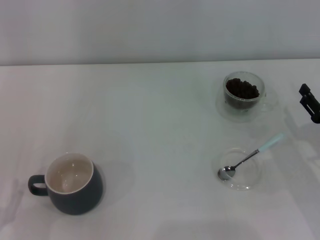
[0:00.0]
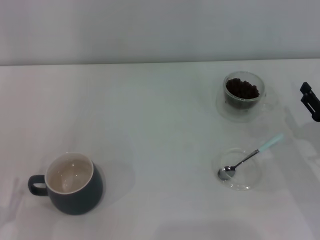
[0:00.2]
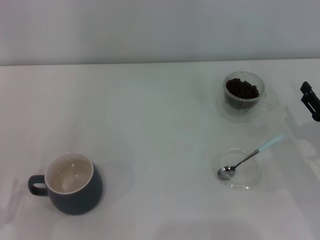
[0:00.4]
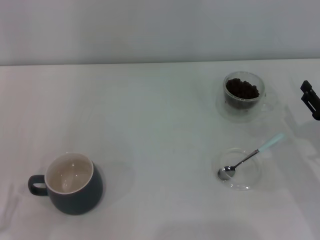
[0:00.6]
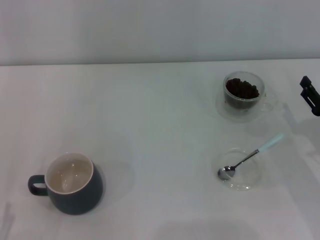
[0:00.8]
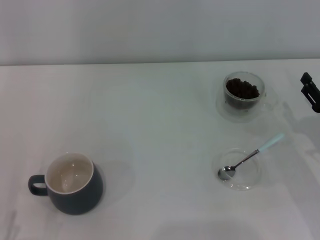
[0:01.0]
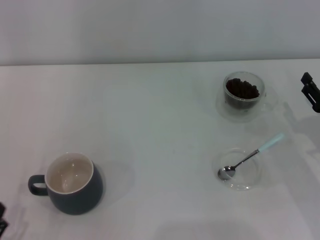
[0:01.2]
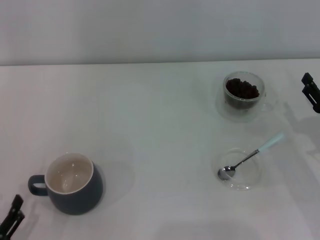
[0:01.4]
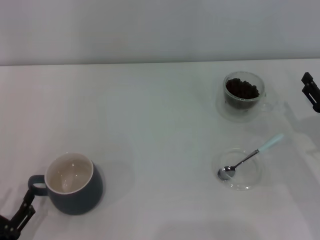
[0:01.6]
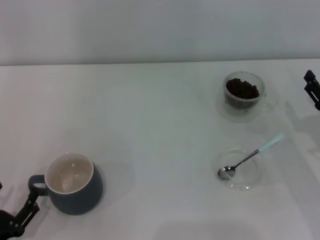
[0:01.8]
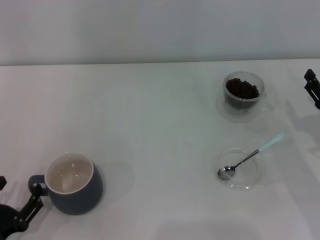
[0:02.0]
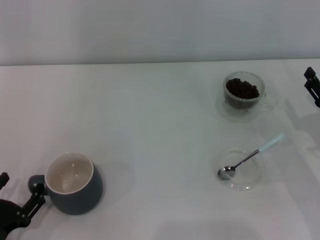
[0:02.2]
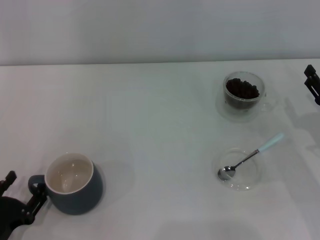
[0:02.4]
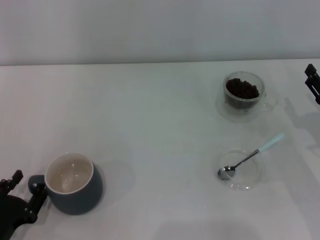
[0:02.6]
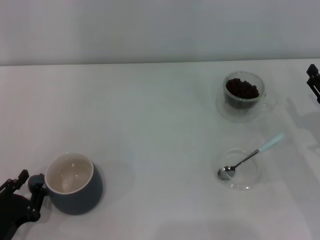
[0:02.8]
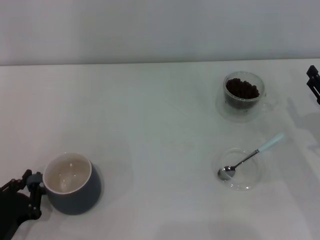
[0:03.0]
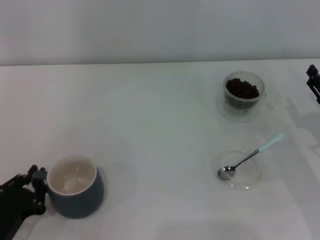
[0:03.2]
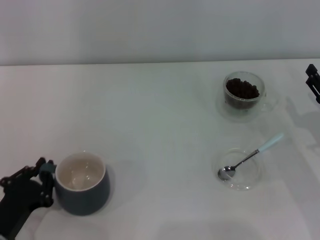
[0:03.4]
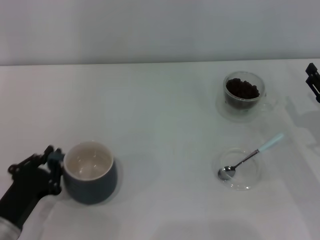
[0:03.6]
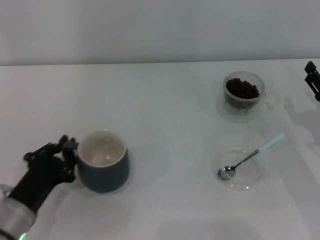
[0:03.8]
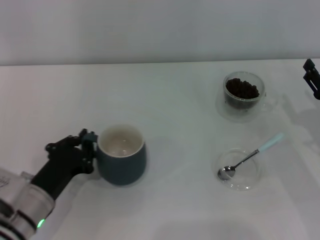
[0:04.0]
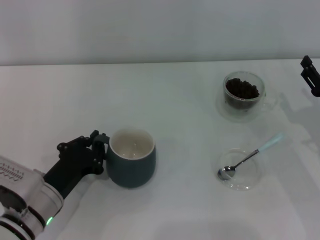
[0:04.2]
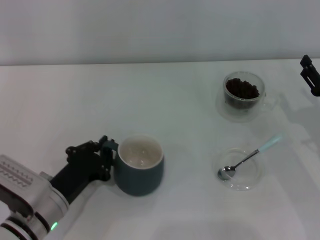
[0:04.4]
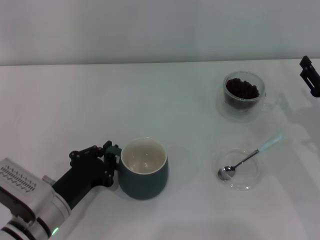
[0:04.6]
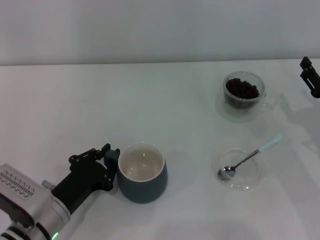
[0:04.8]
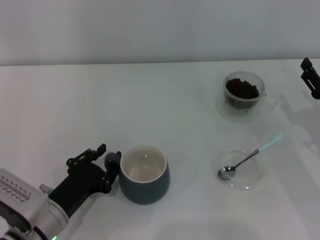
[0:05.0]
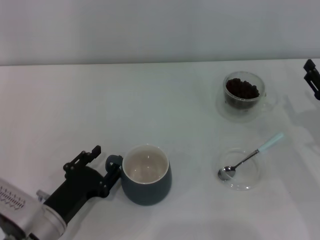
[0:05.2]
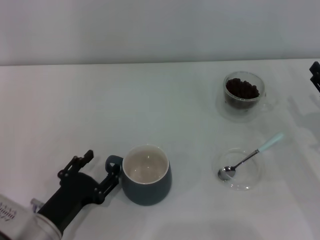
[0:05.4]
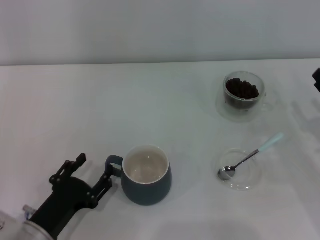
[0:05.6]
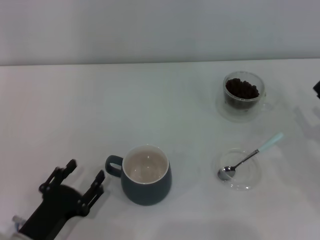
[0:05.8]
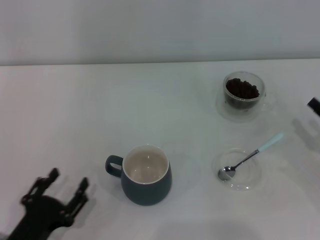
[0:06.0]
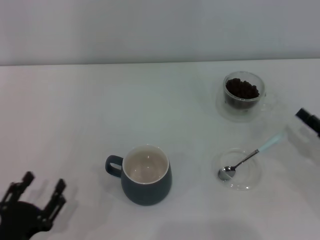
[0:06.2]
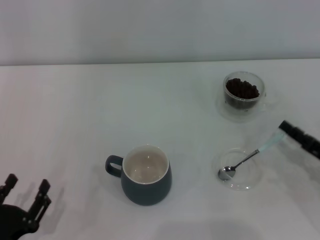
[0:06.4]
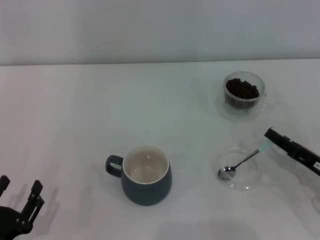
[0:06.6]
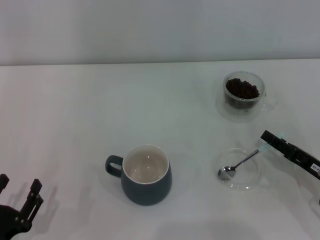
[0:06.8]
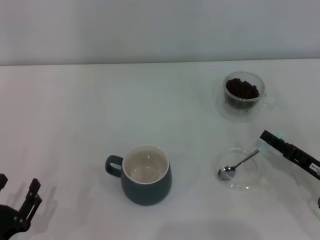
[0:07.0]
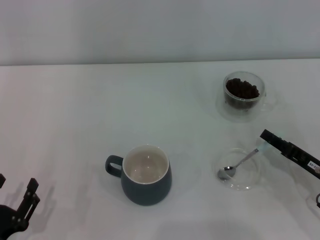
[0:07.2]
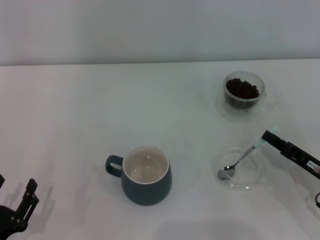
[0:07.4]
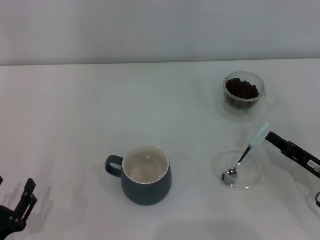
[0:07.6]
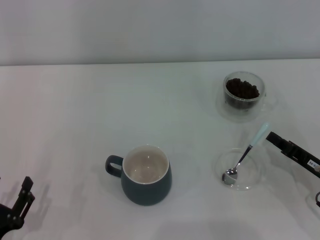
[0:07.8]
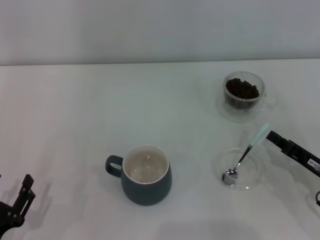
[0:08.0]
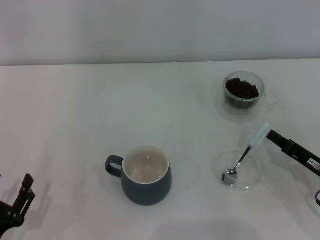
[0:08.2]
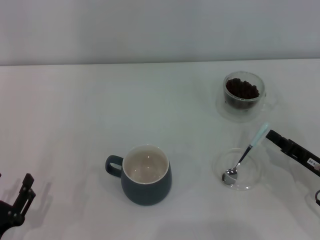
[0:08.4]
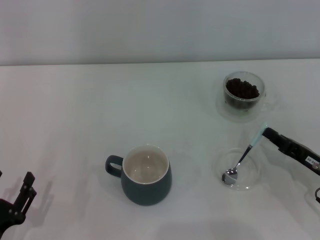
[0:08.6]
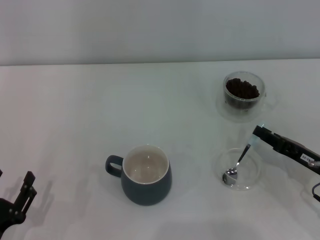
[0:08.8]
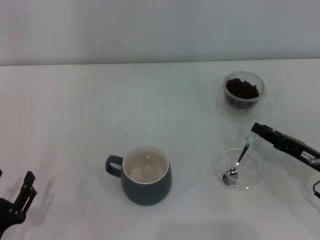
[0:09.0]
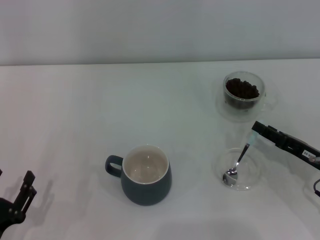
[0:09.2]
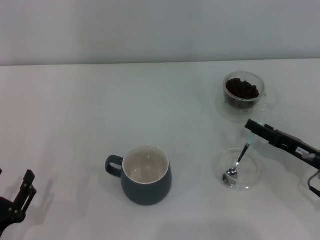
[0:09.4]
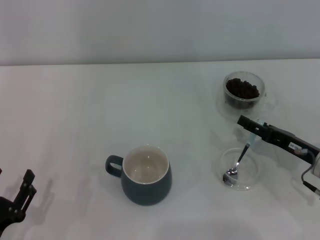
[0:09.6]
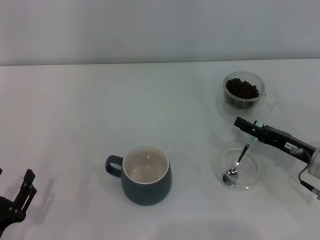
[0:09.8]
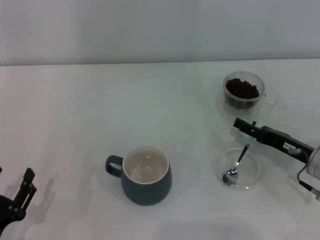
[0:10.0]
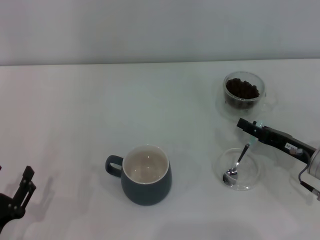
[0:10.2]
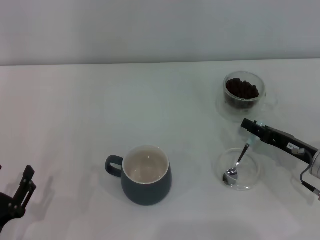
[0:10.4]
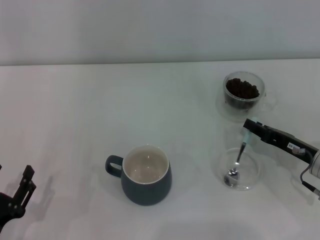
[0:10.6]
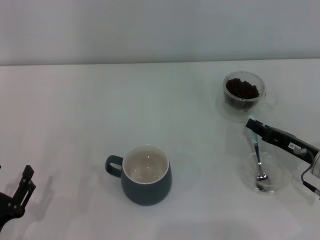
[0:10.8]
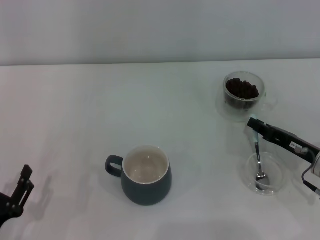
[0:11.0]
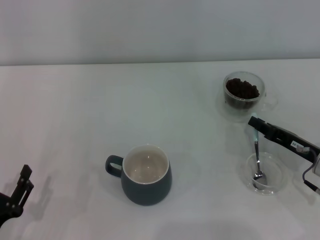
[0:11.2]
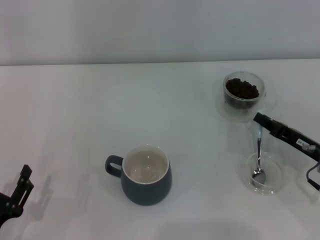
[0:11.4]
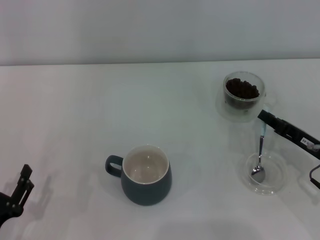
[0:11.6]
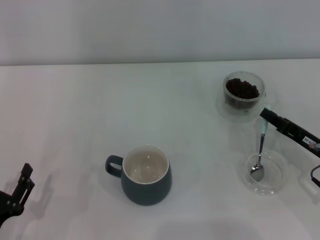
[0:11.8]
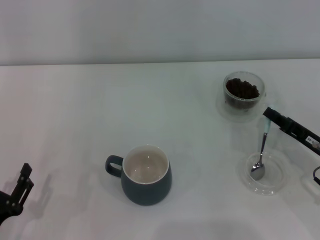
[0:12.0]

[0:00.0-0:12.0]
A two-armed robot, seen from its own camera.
Task of the whole recording: Use a blue spoon to take out the coffee beans from the glass and pour them into the gray cup.
Step, 0:00.0 to 0:05.8: Move the cup to the center of view with the left gripper.
0:01.6 to 0:03.0: The left gripper closes.
0:03.0 to 0:04.4: The left gripper goes approximately 10 cm to the right and forward.
0:04.4 to 0:06.0: The left gripper travels backward by roughly 10 cm, and opens up; the right gripper shifts by some 5 cm.
0:06.0 to 0:07.6: The right gripper travels to the left by some 5 cm, and closes its fingers. Meanwhile the left gripper changes place by some 5 cm.
0:07.6 to 0:09.0: There are only small adjustments of the grippers.
0:09.0 to 0:10.4: The right gripper opens.
0:10.4 to 0:12.0: The right gripper closes.

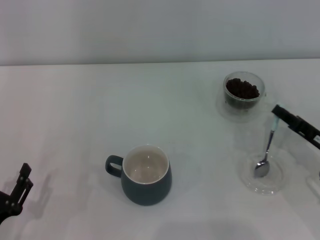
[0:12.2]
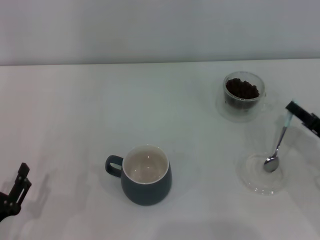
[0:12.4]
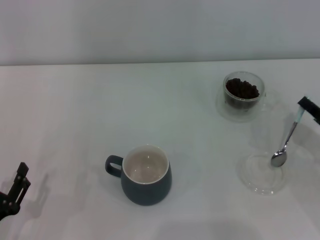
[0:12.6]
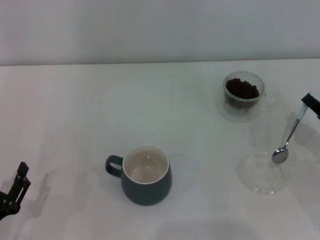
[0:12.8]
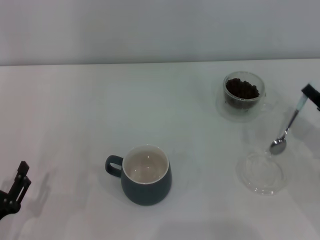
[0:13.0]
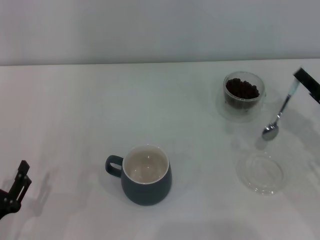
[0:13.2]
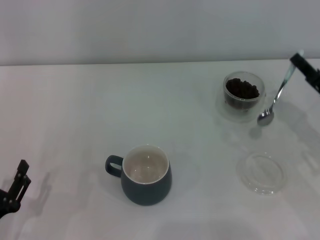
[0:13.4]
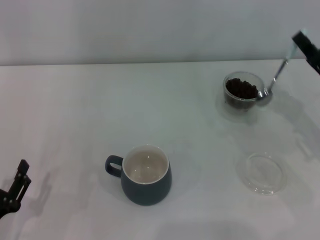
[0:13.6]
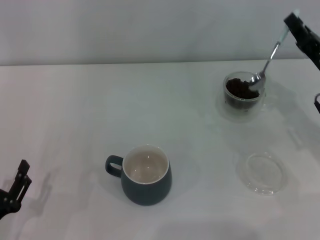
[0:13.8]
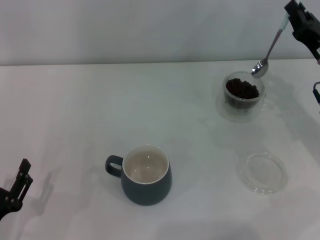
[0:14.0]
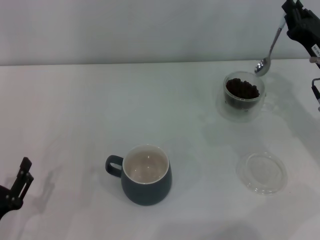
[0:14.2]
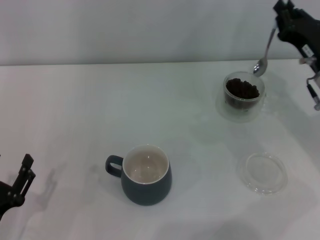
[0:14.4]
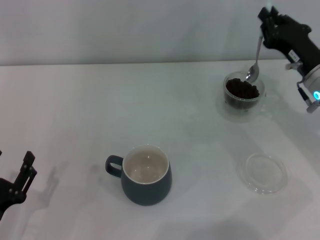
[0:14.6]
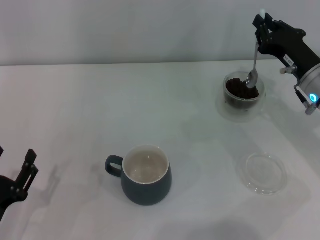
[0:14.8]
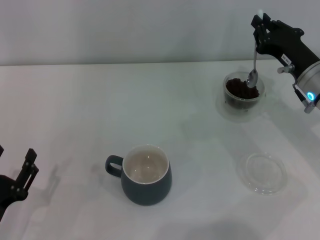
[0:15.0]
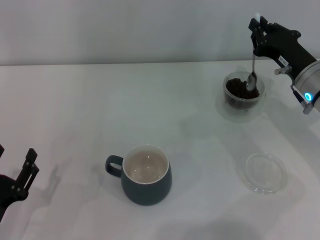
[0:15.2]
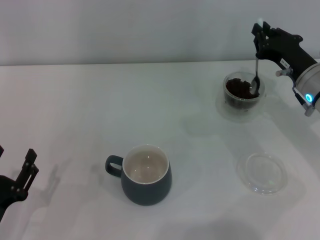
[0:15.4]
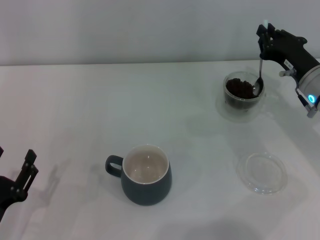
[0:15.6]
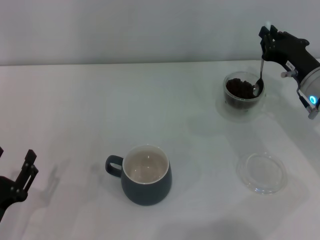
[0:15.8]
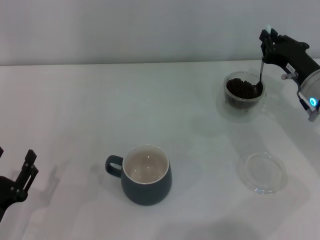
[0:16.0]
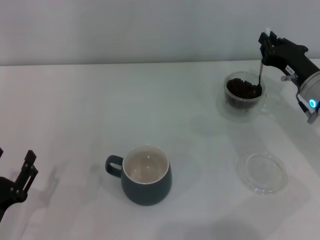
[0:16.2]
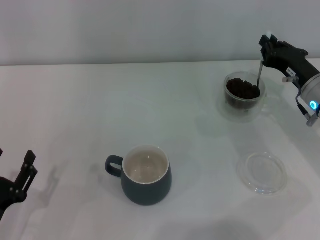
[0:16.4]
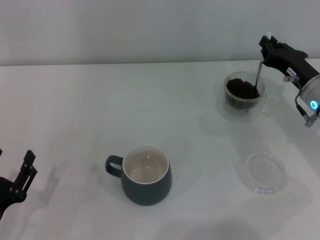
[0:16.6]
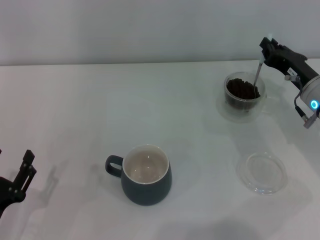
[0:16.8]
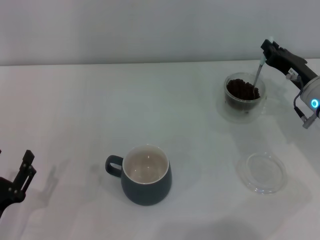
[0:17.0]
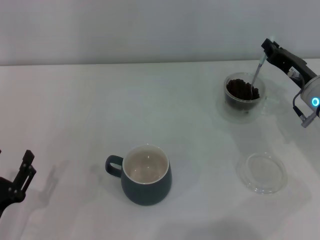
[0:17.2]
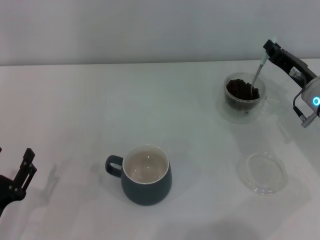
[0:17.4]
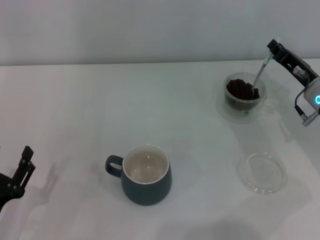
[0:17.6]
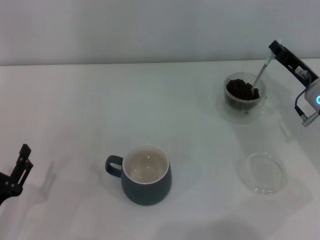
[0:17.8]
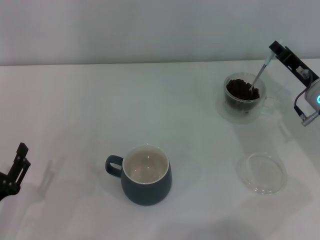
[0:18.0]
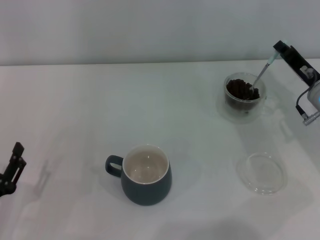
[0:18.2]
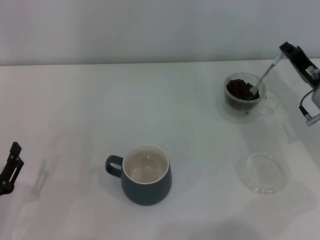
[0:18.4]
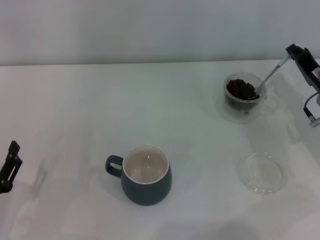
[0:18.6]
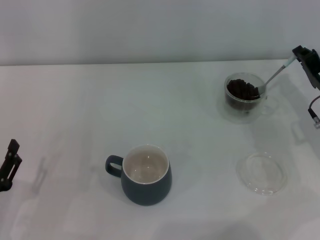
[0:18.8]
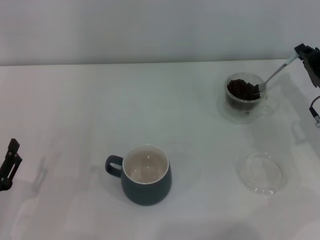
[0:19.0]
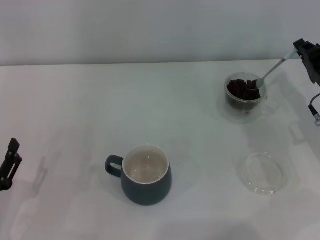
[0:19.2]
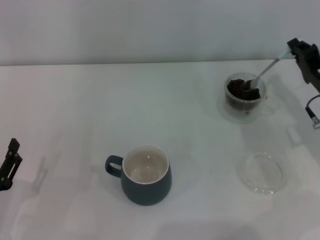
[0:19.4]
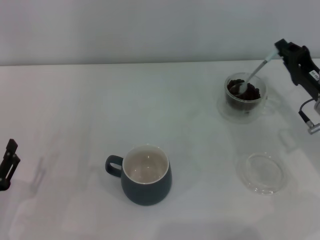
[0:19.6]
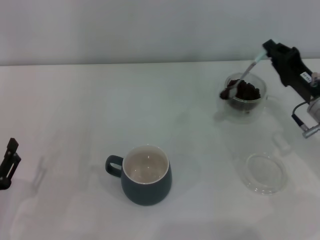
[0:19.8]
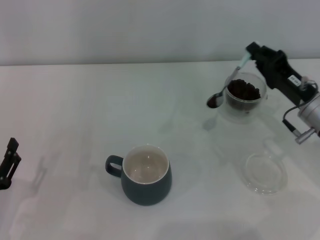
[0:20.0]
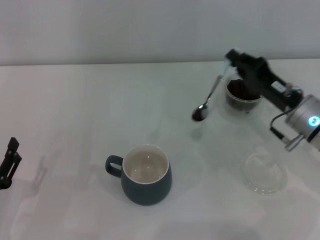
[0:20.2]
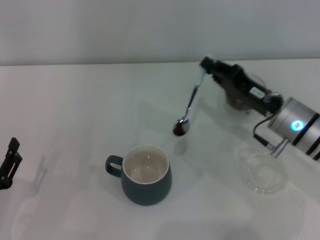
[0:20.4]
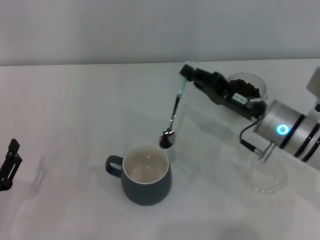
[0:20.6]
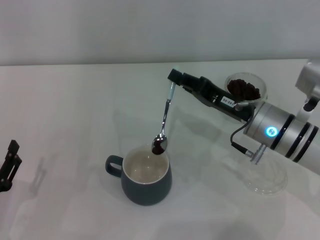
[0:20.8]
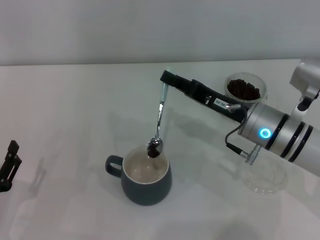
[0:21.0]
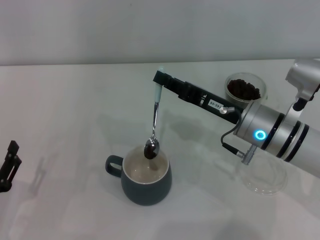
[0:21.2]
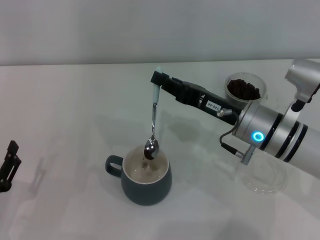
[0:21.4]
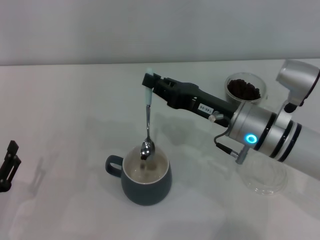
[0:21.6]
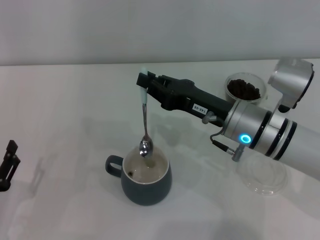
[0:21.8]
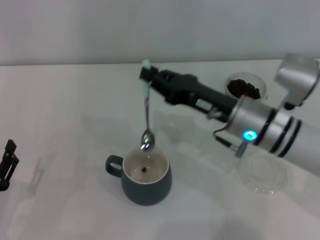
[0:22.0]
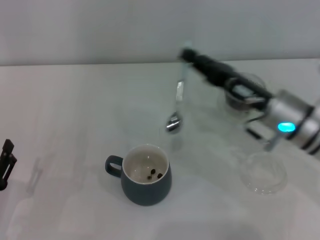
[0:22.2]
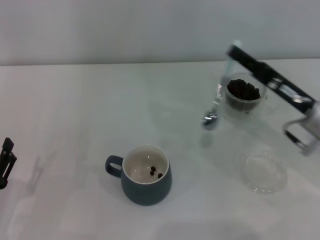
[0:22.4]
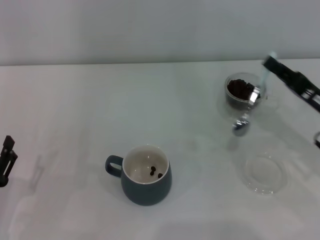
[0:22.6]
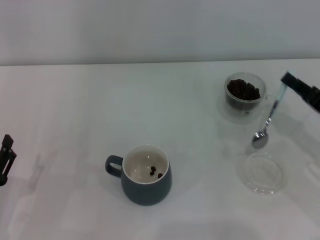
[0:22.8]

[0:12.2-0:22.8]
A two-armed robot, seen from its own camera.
Task of the whole recording: Use a blue spoon to take out the coffee beans from the glass and pour them into the gray cup.
Step, 0:13.2 to 0:22.0: Scoop a spoonful of beans into the cup with the right gripper.
0:12.2 to 0:13.8: The right gripper is displaced upward and forward by roughly 10 cm.
0:13.8 to 0:15.2: The right gripper changes place by some 5 cm.
0:15.2 to 0:16.8: The grippers make only small movements.
0:19.8 to 0:21.2: The right gripper shifts roughly 10 cm to the left.
0:21.2 to 0:22.8: The right gripper goes approximately 15 cm to the right.
